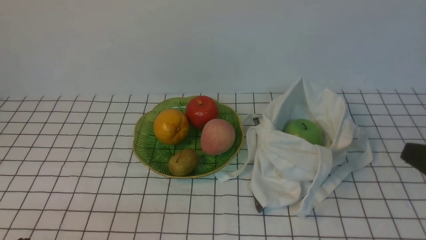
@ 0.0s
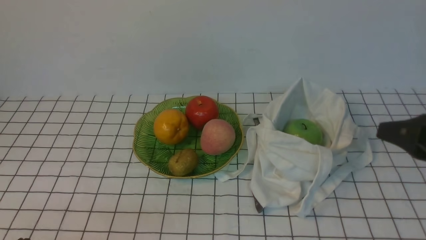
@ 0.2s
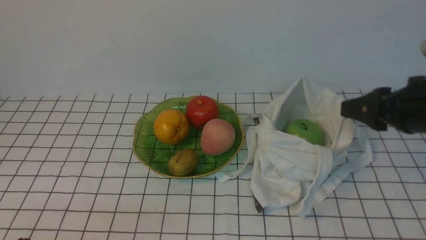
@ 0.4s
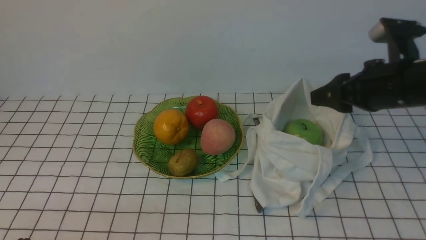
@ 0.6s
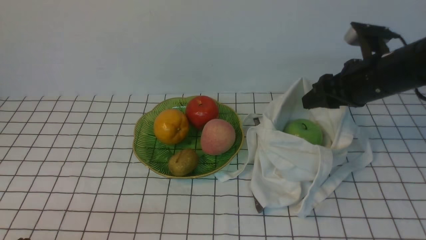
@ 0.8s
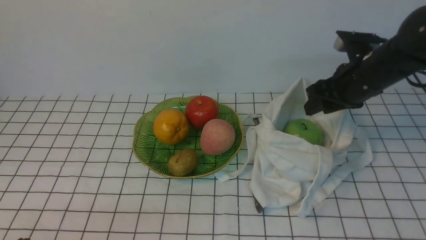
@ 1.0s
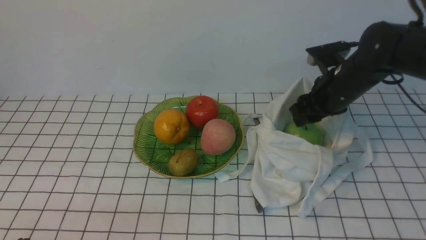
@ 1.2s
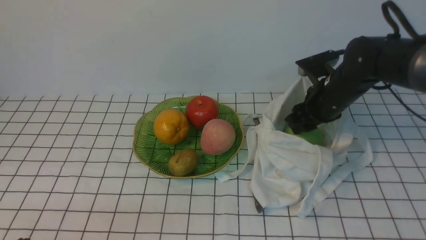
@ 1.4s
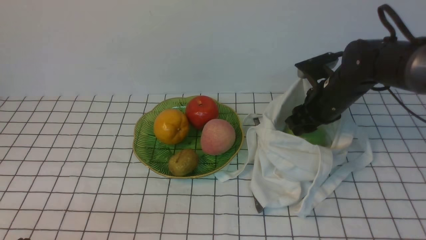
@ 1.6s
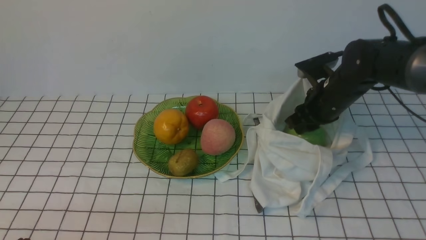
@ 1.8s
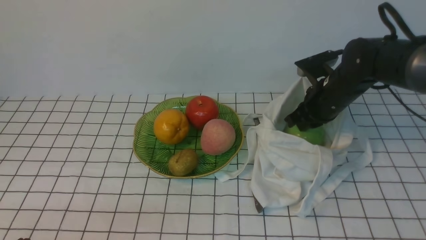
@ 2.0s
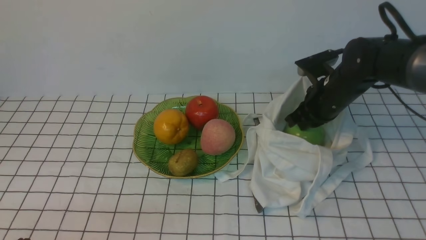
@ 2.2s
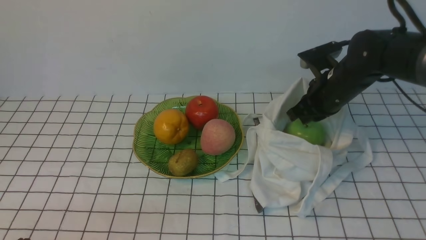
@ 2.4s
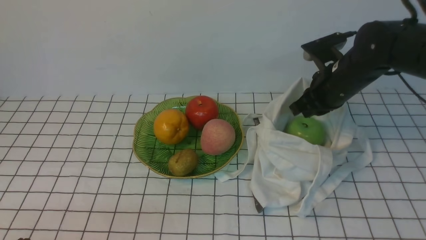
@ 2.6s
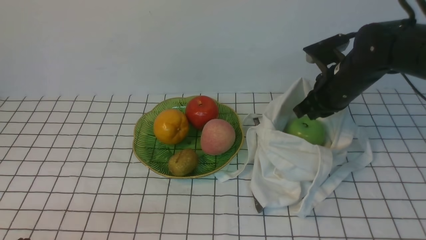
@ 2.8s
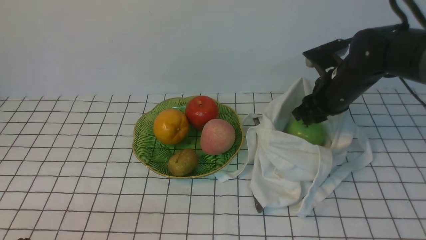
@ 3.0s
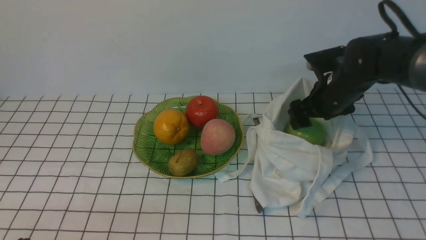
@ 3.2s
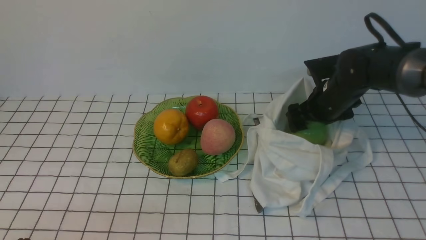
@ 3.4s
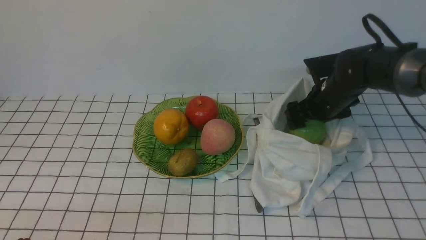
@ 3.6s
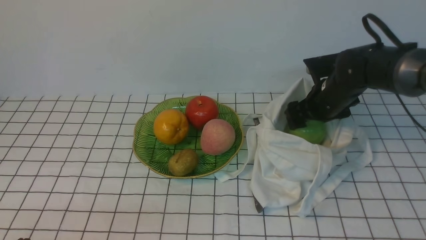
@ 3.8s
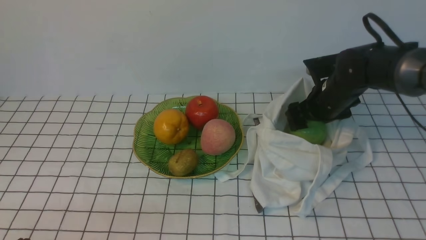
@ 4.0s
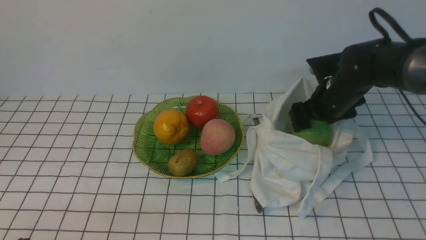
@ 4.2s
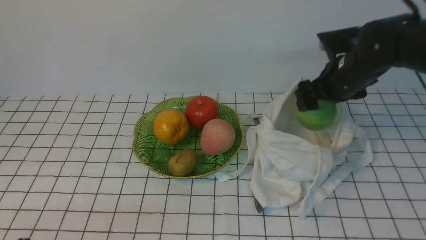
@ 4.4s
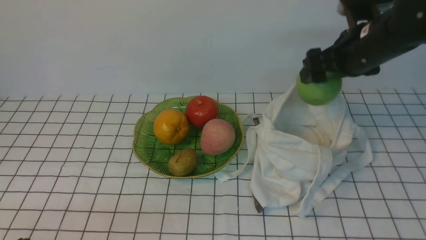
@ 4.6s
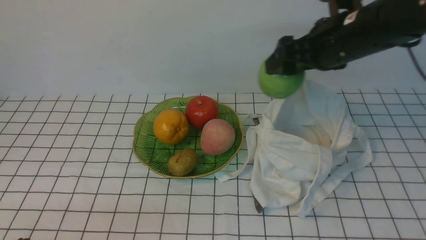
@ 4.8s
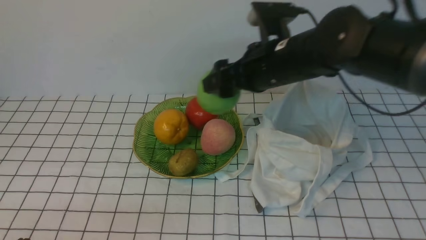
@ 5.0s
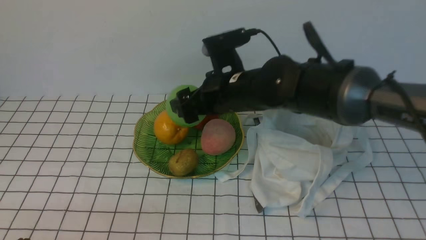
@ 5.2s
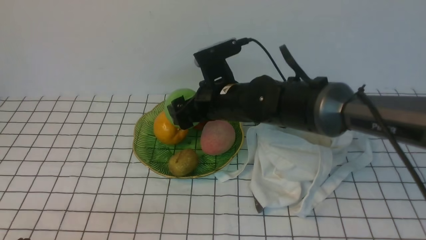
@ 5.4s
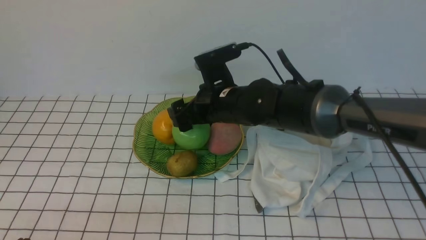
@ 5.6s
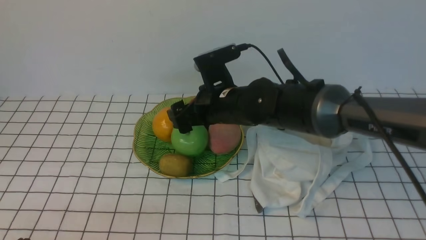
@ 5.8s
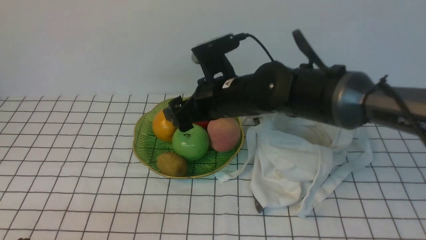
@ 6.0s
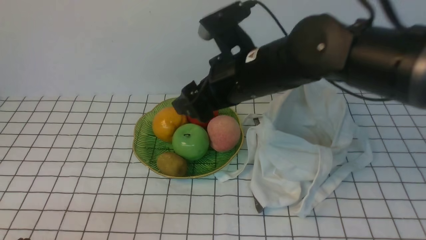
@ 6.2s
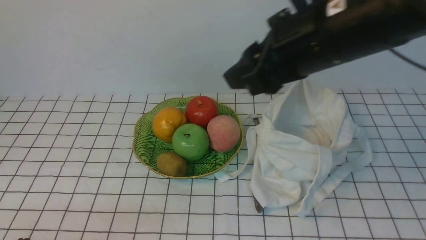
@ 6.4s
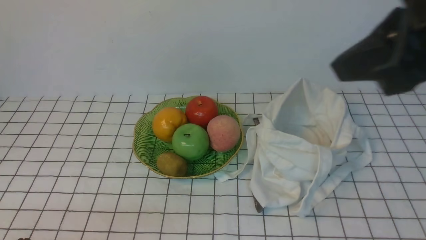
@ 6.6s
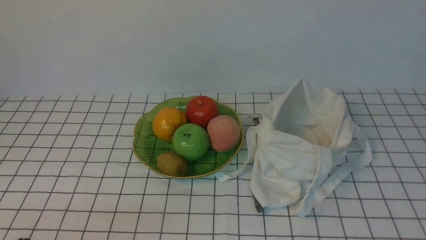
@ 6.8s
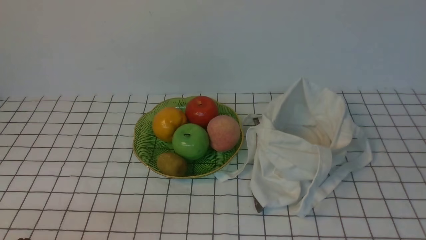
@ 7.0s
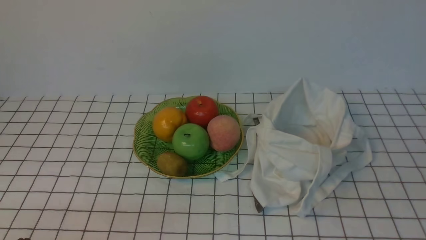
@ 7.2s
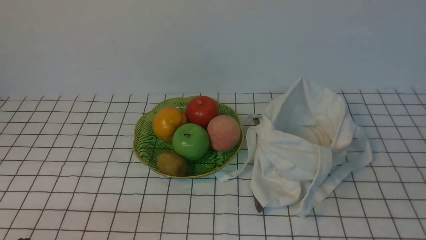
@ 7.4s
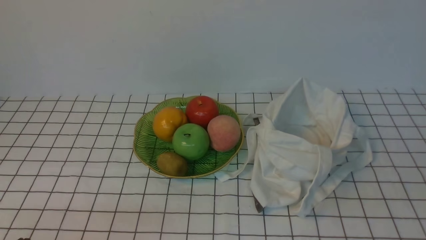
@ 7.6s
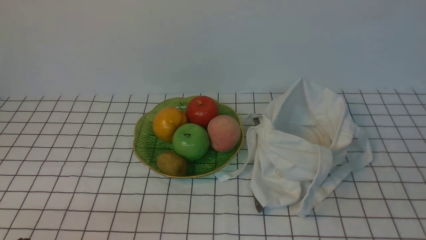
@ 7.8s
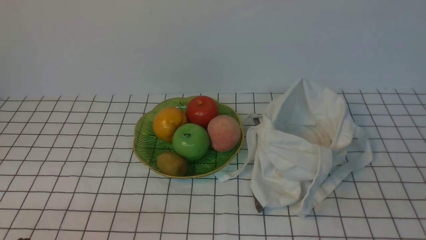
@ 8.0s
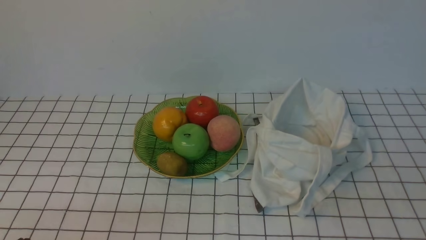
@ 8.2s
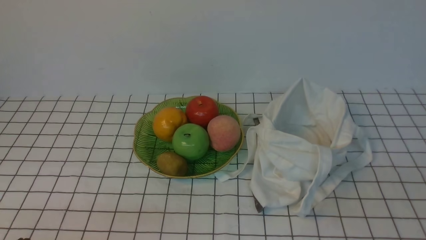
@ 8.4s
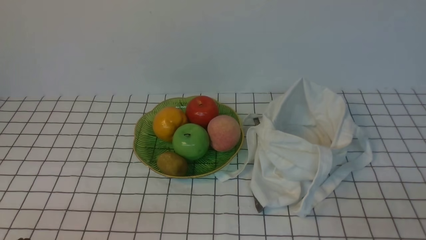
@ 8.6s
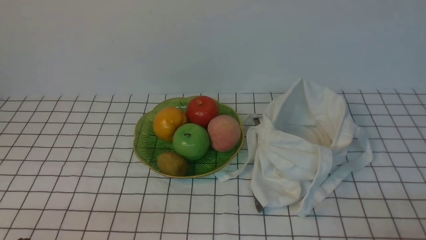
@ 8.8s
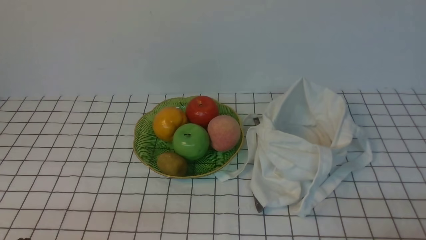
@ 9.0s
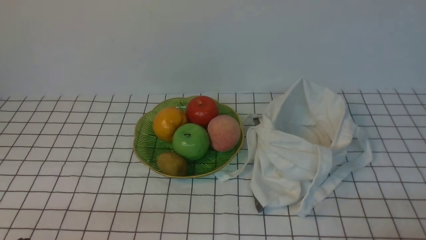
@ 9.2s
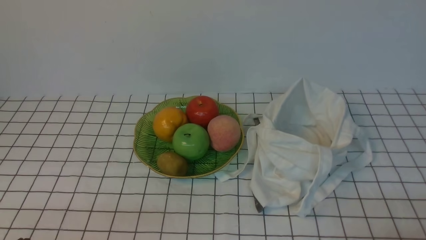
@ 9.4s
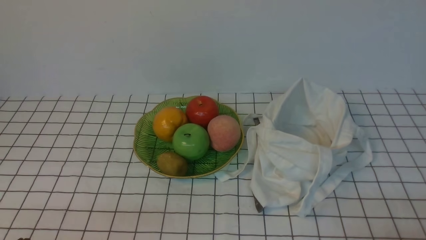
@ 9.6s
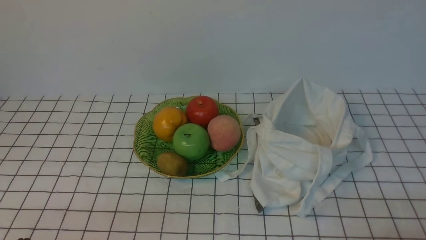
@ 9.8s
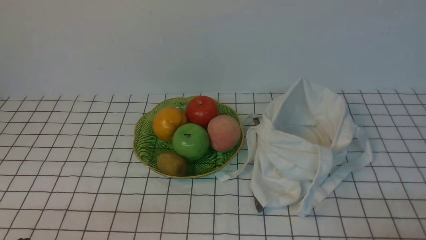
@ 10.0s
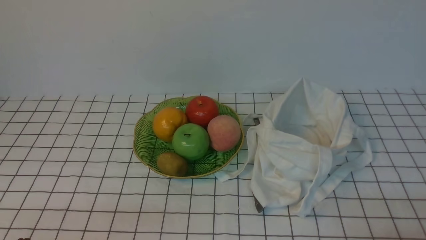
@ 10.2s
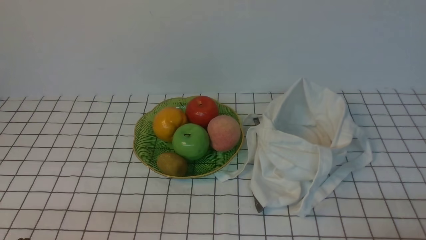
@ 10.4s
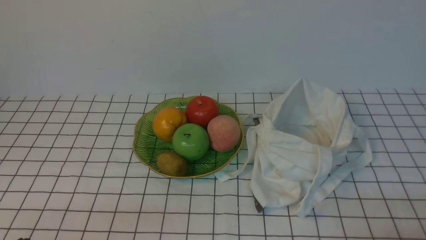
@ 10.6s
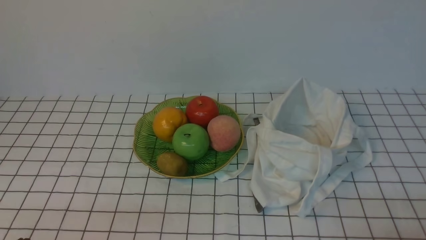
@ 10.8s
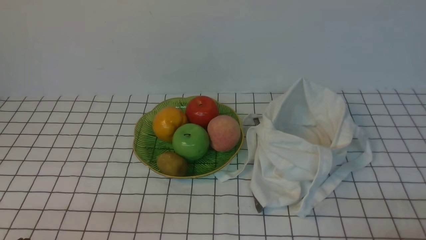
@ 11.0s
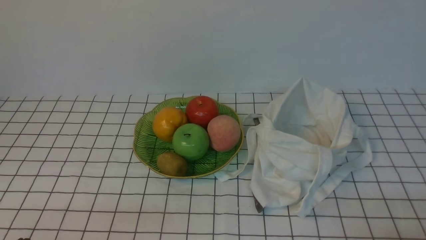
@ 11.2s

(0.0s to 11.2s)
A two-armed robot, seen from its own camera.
Step, 0.0s - 4.2s: use the right arm to grab an apple from the bag.
Step, 4.4s - 6.0s: use the right arm to put the apple into the empty plate on the left.
0.0s - 1.6s: The right gripper heads forward and downward, covering approximately 30 cm, and opens.
1.6s - 3.2s: The right gripper opens its fingers.
3.2s - 4.8s: The right gripper moves upward and to the left, some 15 cm.
4.8s - 6.4s: The right gripper travels backward and upward by about 15 cm, and closes up.
6.4s - 8.0s: The right gripper heads backward, to the right and downward, covering about 25 cm, and closes its fingers.
9.6s - 11.2s: The two grippers keep their place.
